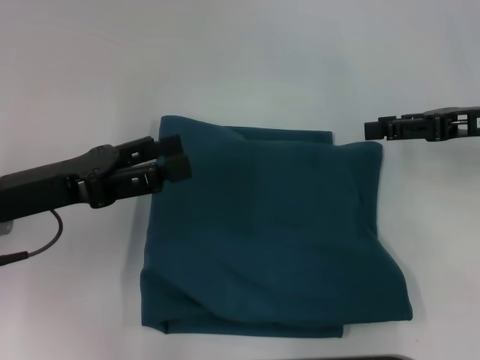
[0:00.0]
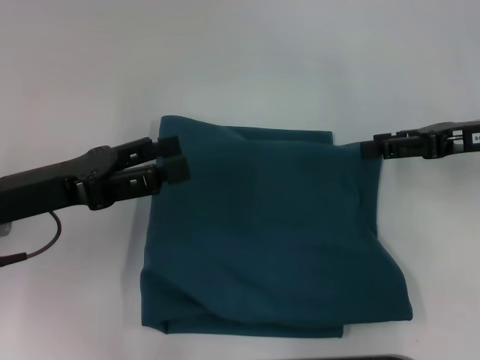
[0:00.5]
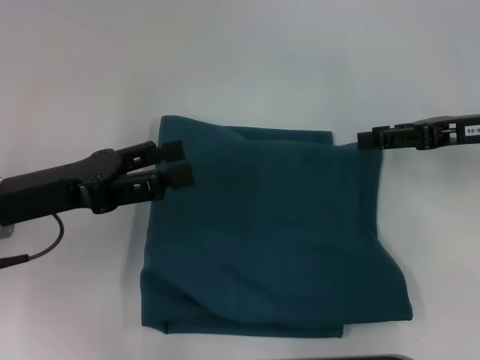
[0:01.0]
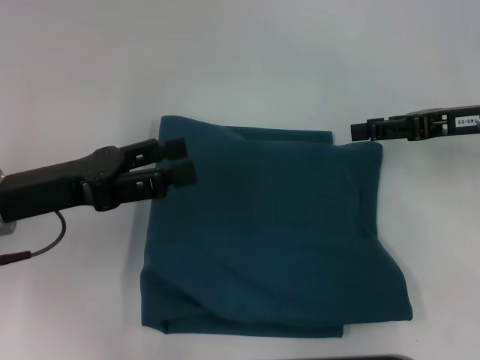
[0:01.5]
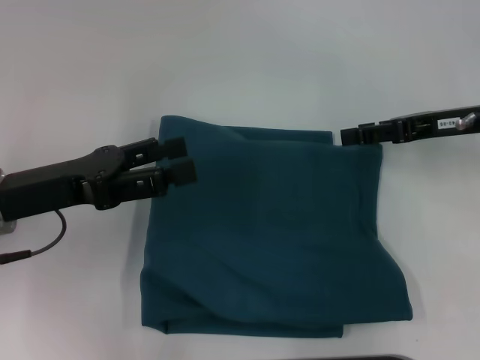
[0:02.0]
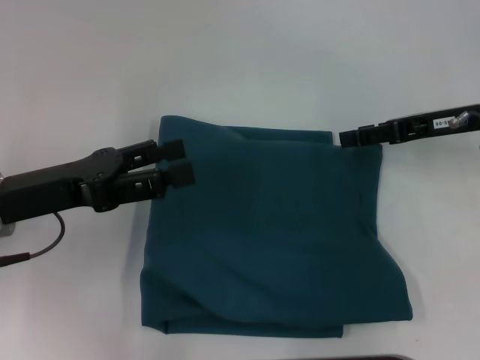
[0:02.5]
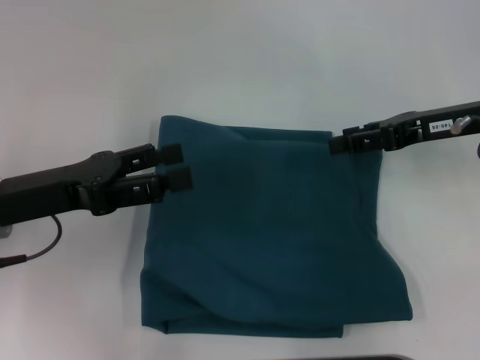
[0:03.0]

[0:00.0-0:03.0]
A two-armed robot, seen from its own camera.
0:00.0 to 0:03.0: The grippers stay close to where they were, moving slightly.
